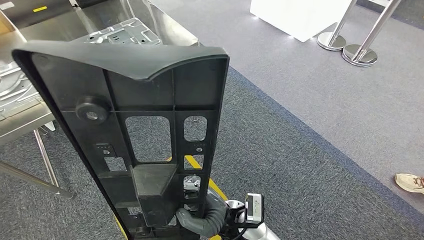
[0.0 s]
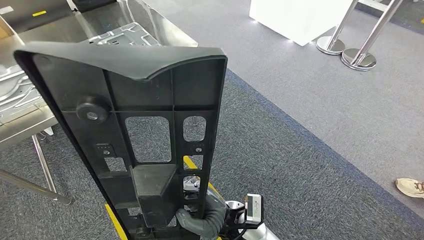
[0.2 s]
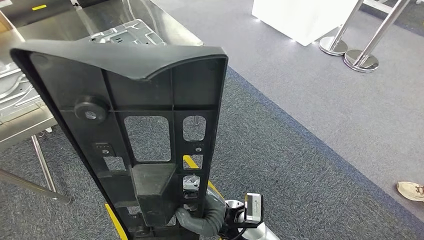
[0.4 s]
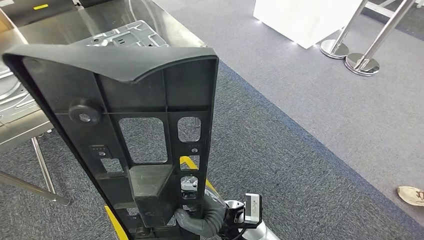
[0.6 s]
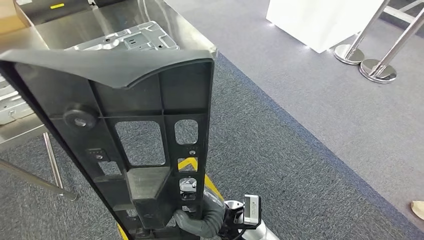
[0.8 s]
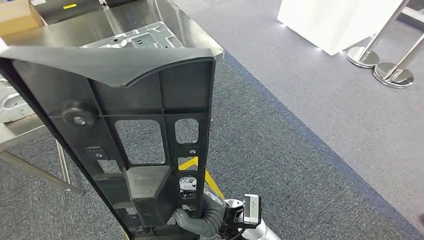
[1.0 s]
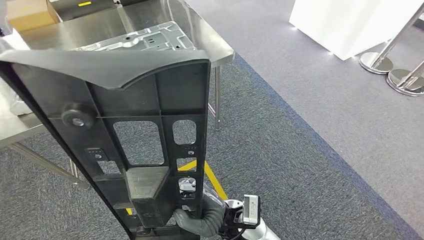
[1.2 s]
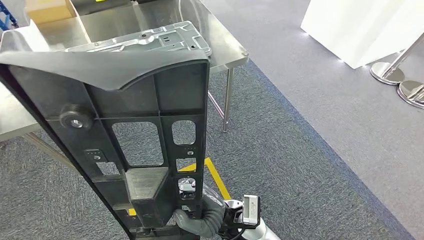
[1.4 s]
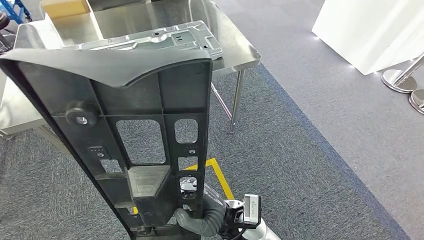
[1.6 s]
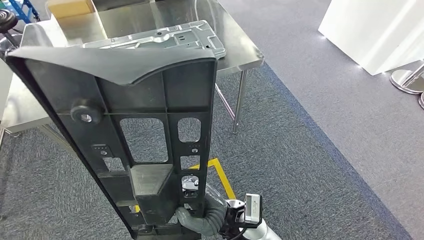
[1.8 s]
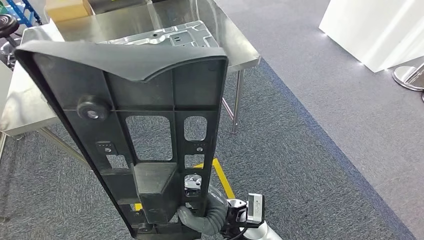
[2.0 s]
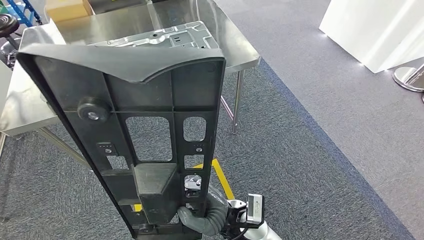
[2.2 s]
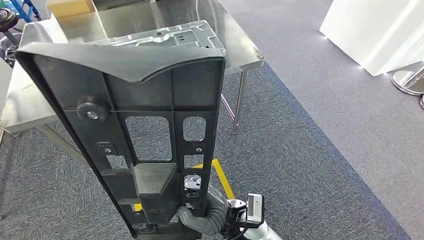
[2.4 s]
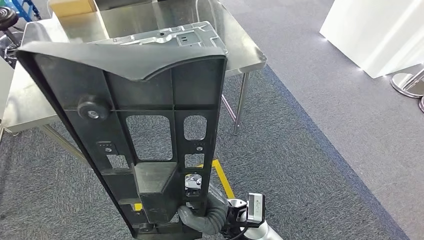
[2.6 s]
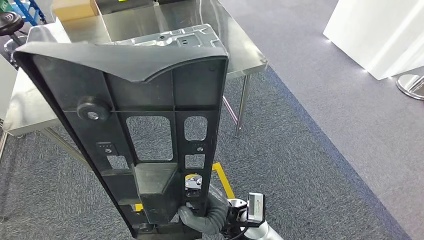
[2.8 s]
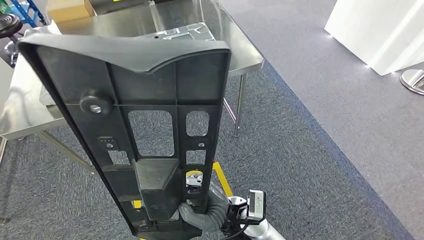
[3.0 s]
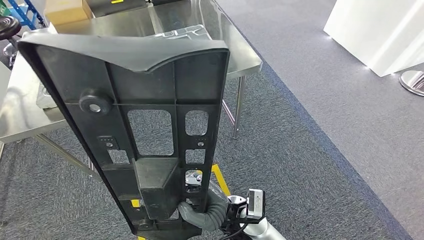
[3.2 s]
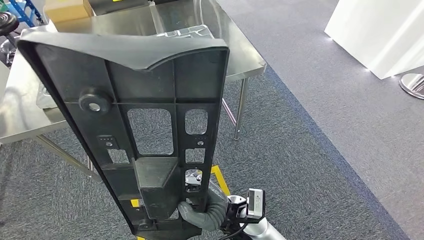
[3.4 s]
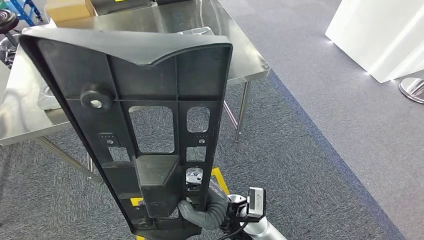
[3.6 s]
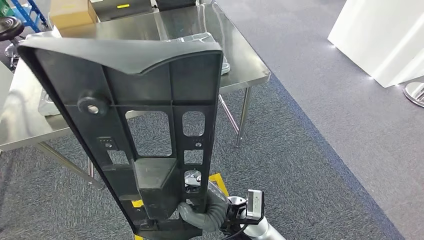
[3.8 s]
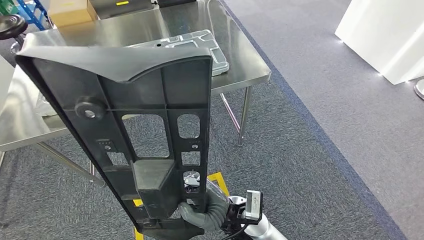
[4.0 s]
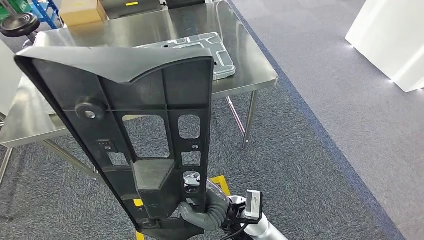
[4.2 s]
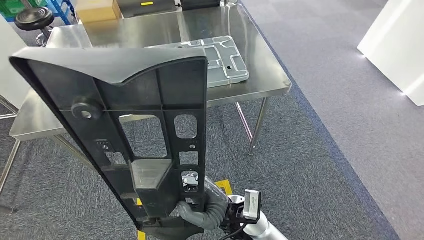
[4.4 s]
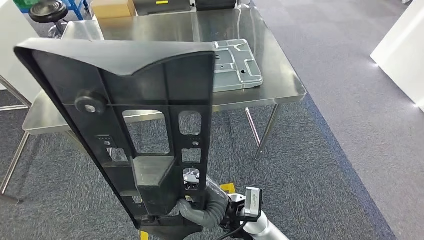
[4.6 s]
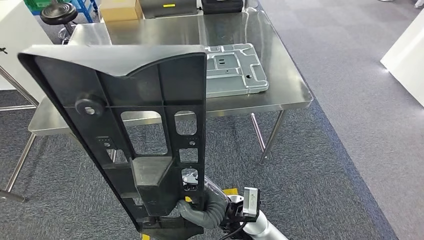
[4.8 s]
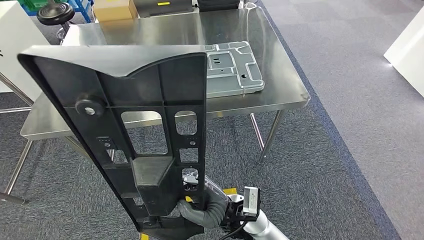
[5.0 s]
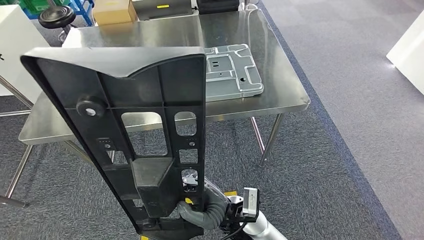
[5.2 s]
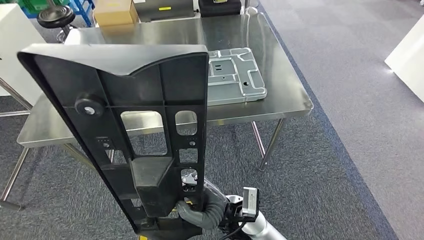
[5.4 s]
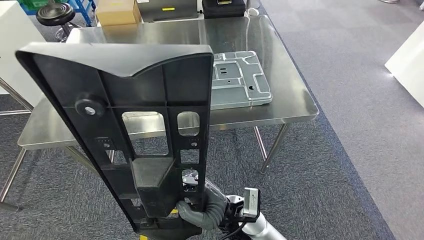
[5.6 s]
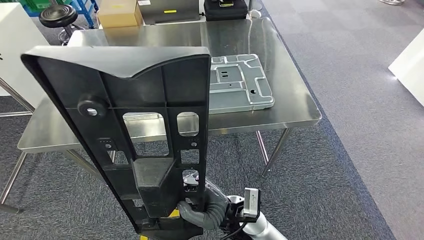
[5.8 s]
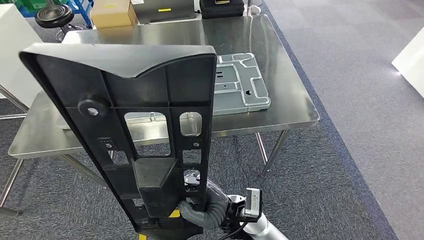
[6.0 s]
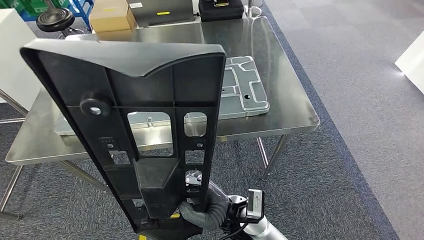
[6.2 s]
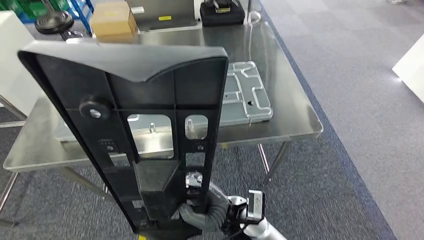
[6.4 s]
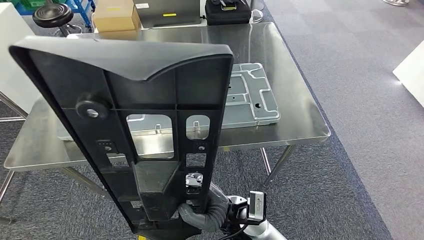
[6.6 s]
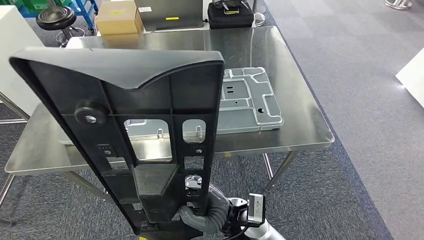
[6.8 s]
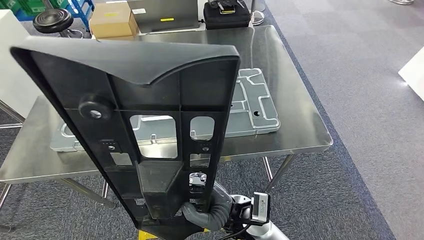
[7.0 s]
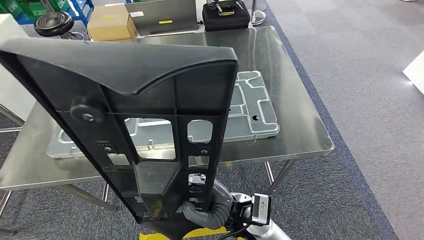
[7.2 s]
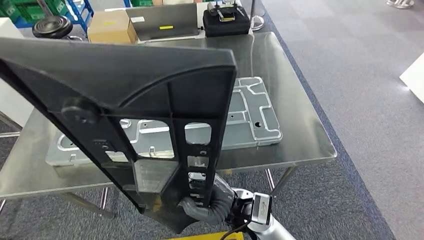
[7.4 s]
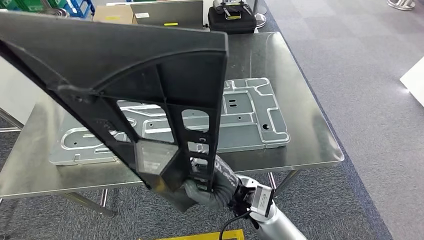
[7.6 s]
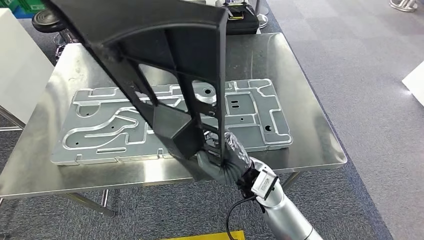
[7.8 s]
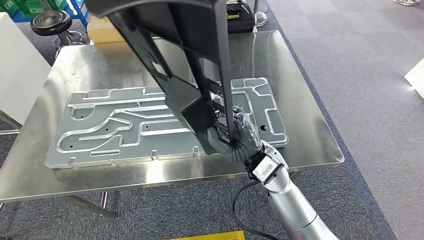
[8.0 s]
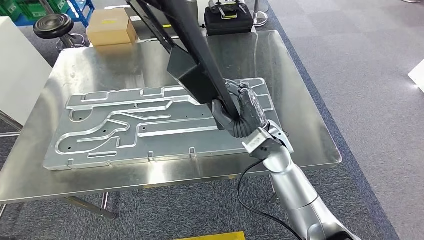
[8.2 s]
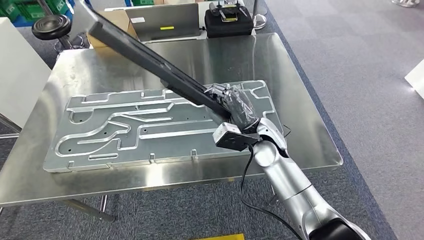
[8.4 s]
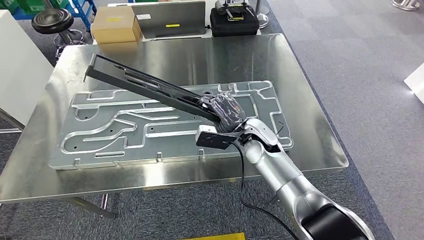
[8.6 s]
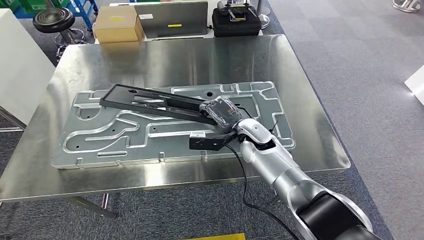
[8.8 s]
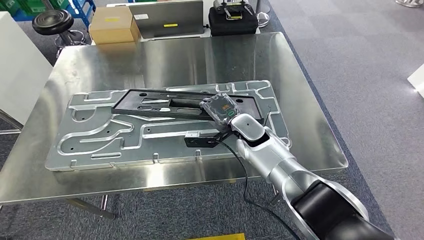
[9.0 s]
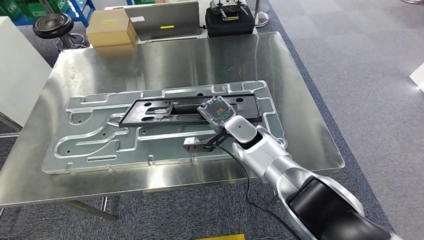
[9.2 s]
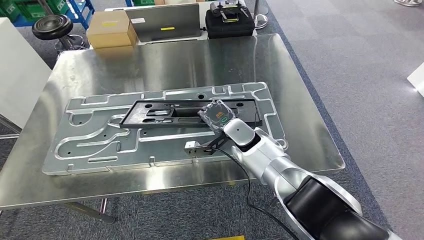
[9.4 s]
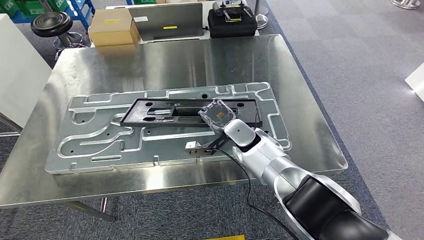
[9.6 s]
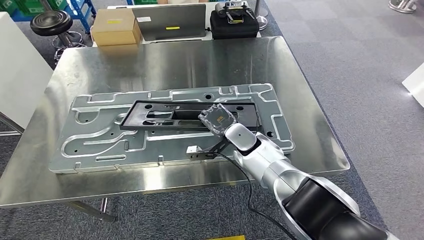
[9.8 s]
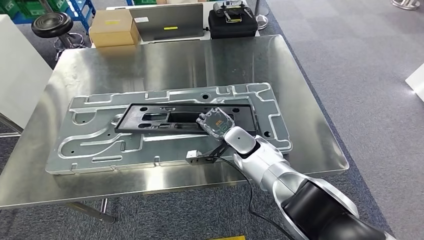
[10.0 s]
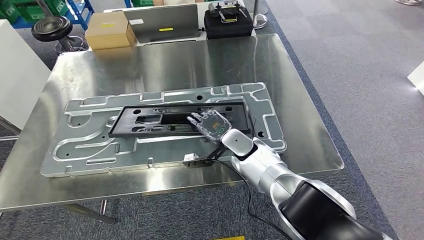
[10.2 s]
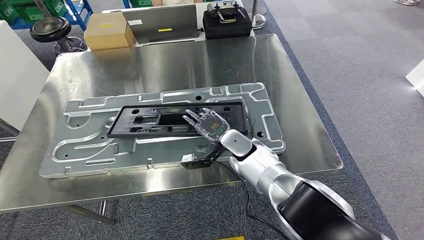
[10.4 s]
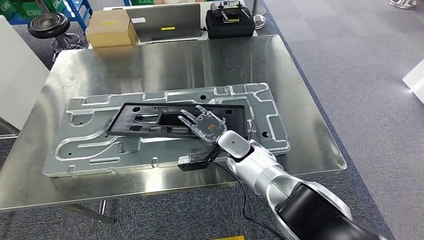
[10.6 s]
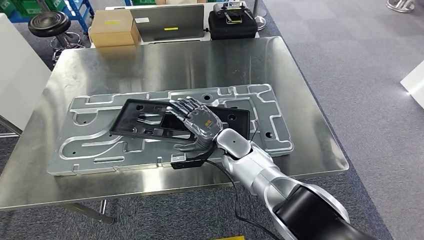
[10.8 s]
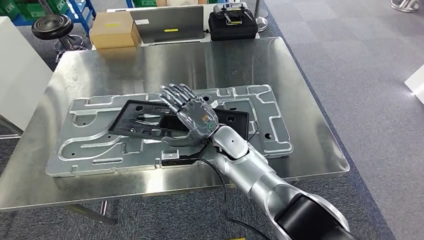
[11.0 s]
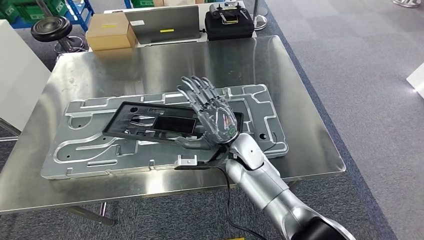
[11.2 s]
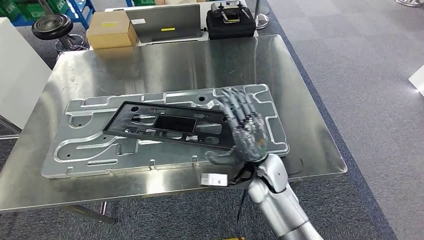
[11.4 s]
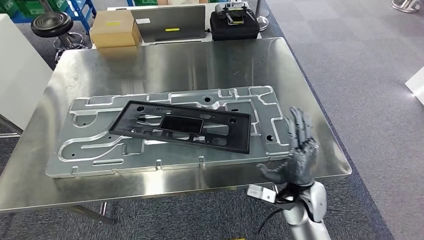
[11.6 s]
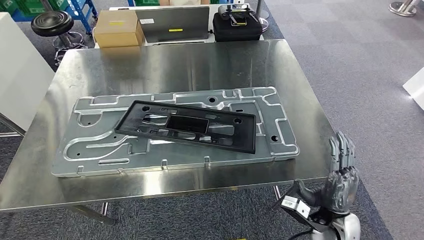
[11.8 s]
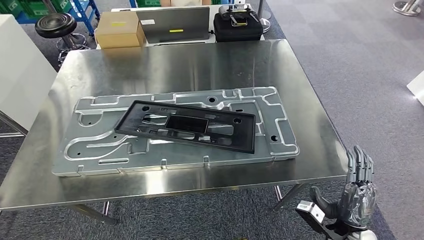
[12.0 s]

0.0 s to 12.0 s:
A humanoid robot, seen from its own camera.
Step, 0.0 to 8.4 s: Move the large material to the workbench.

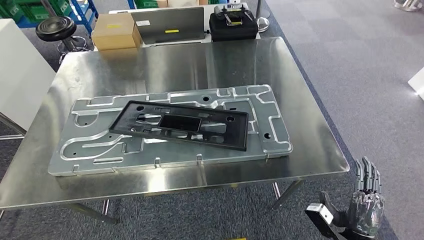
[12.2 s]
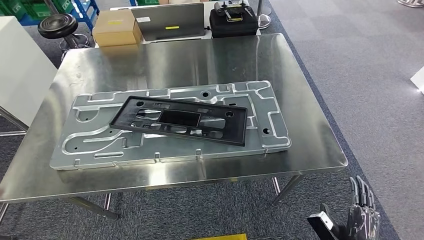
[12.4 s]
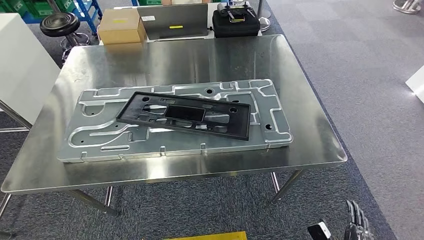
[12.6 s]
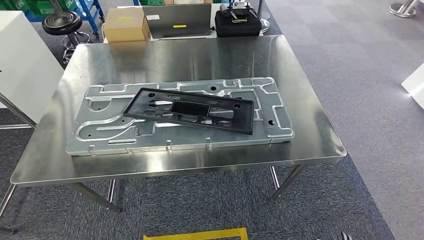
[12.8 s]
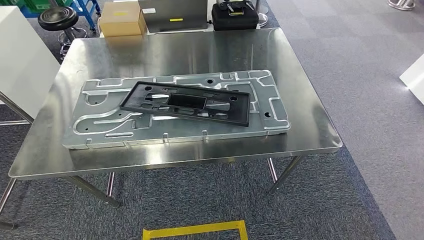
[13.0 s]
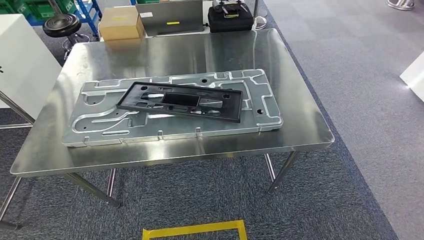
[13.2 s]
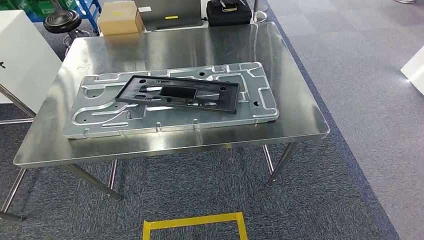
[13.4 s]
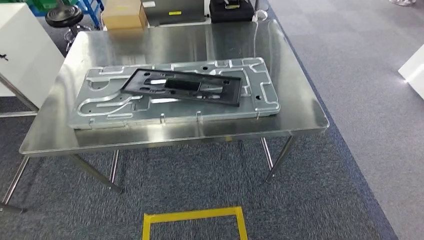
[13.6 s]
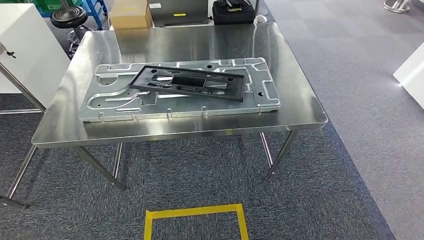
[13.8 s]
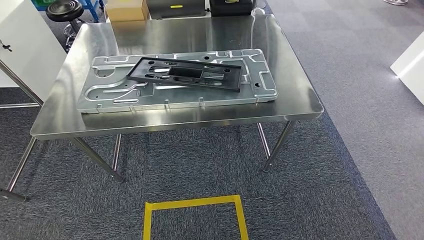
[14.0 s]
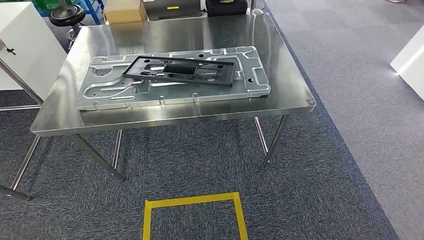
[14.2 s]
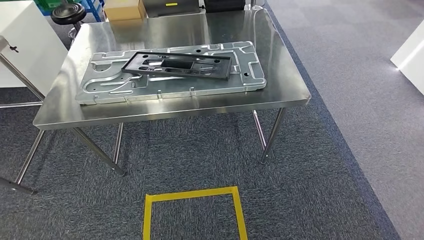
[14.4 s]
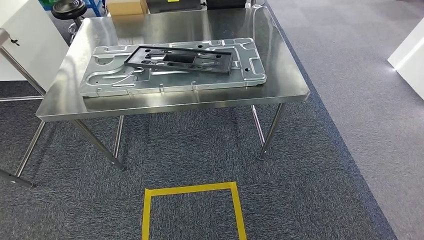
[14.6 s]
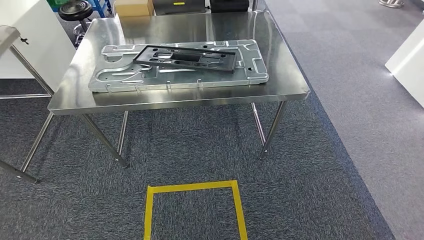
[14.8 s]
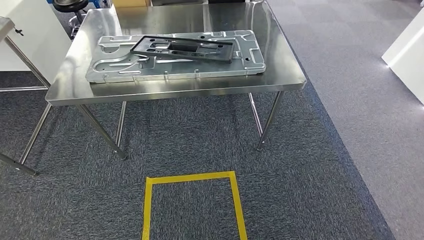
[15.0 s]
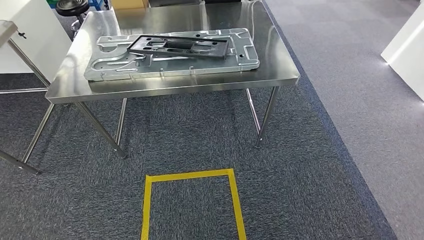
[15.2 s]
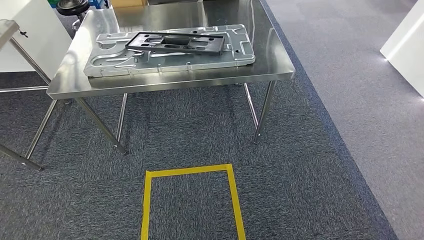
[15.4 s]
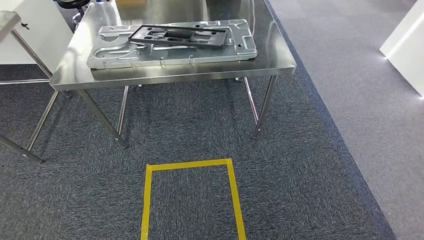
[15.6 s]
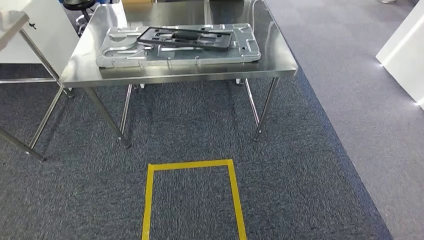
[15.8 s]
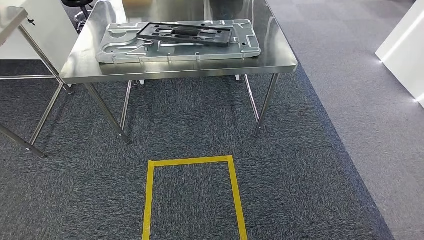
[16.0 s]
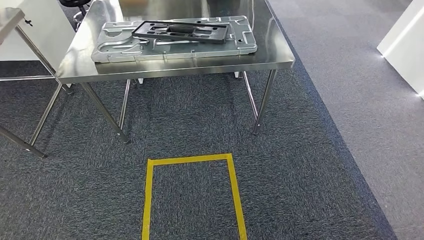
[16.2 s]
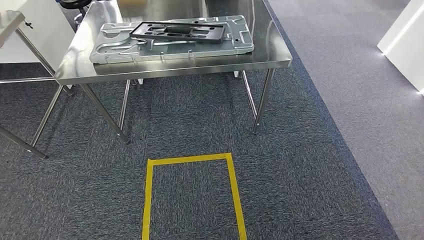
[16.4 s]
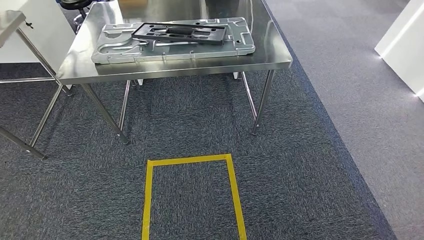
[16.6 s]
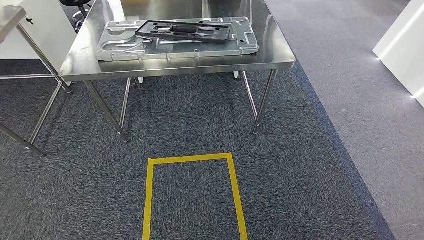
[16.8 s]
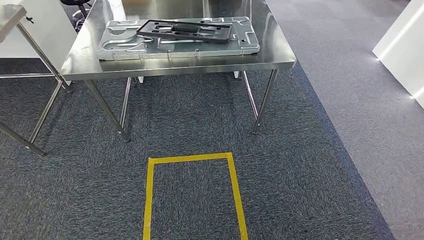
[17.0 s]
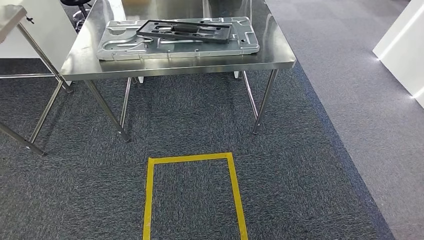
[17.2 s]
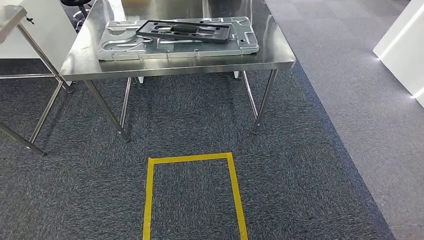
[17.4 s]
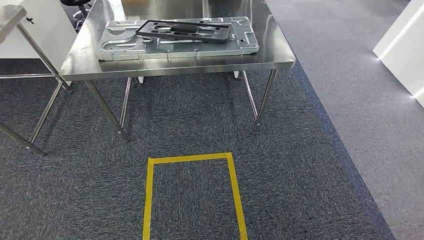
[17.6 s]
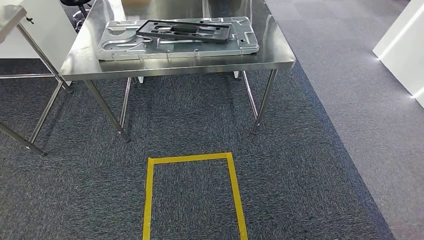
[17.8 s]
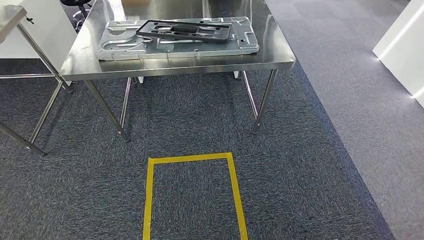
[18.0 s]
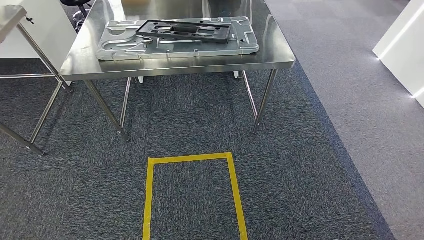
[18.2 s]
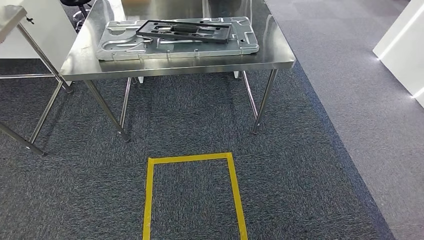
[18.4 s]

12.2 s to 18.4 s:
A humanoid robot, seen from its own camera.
Step, 14.2 to 18.4 s: Move to the initial position of the shelf.
15.4 to 16.8 s: The hands move only a little.
